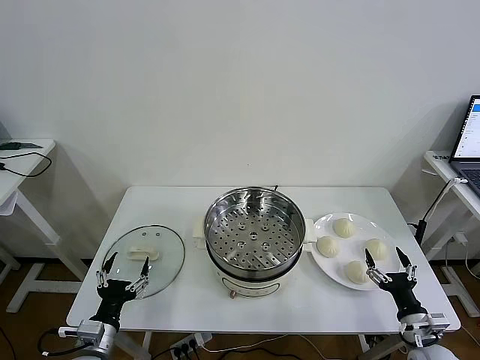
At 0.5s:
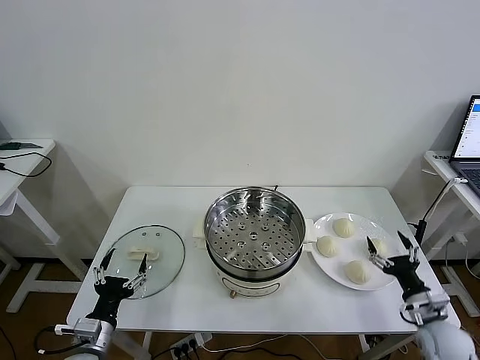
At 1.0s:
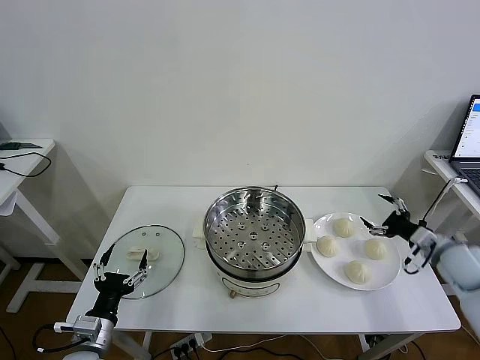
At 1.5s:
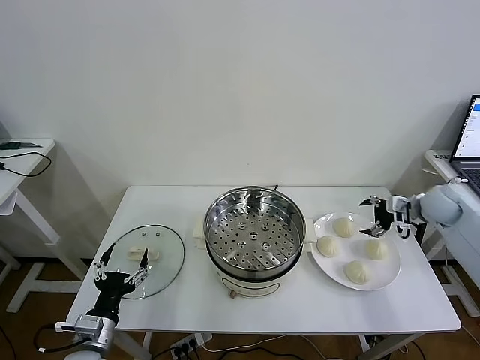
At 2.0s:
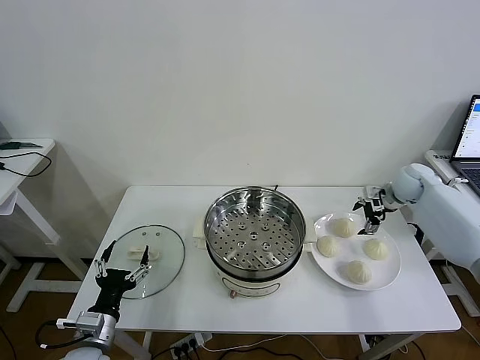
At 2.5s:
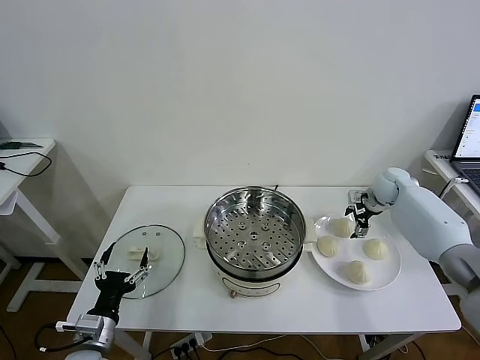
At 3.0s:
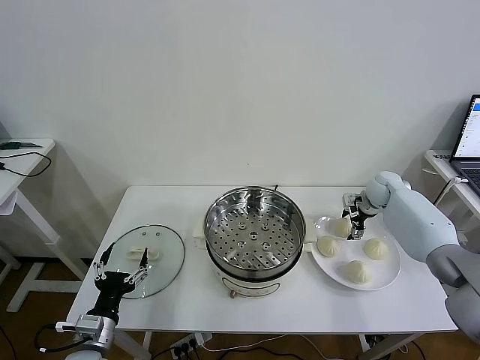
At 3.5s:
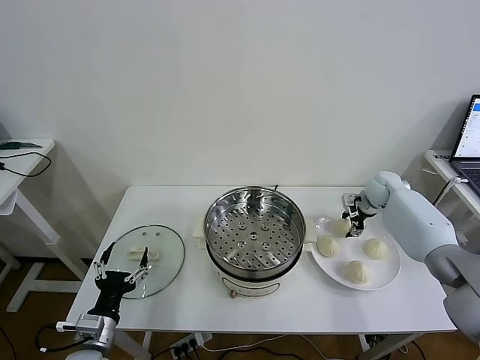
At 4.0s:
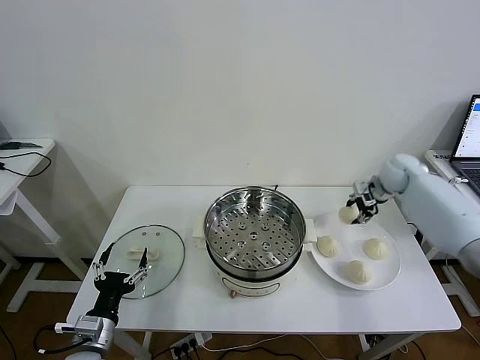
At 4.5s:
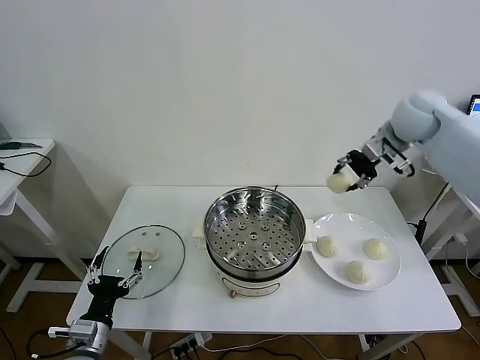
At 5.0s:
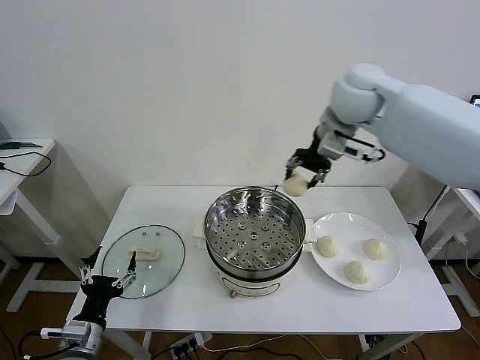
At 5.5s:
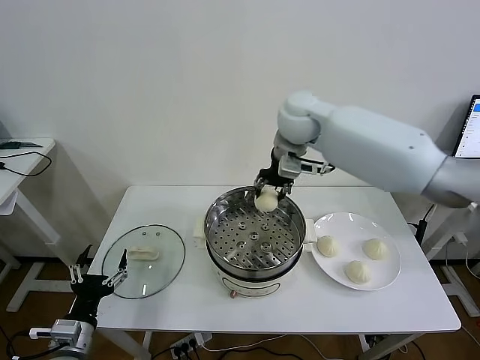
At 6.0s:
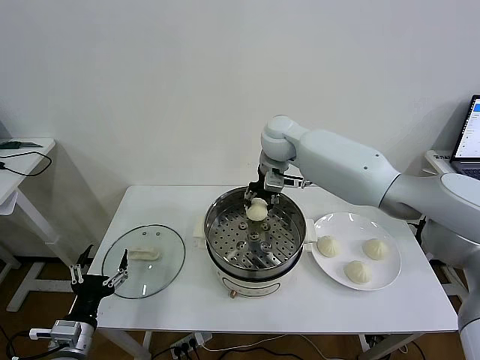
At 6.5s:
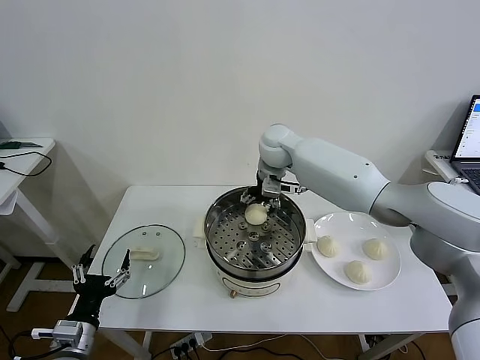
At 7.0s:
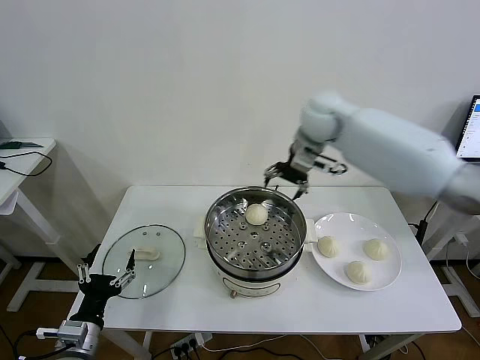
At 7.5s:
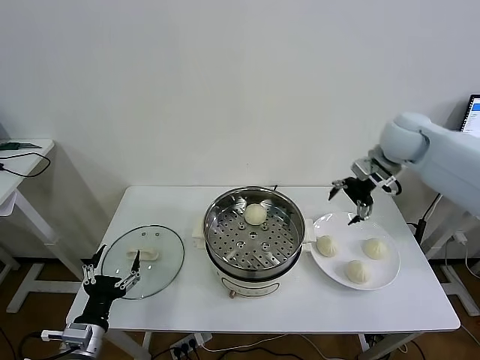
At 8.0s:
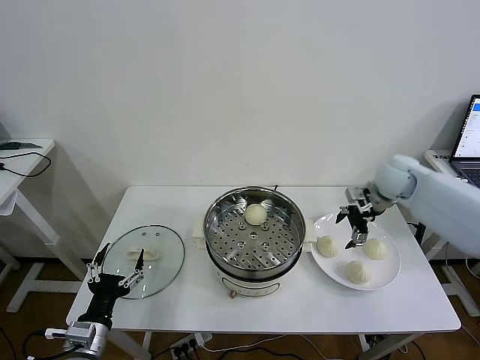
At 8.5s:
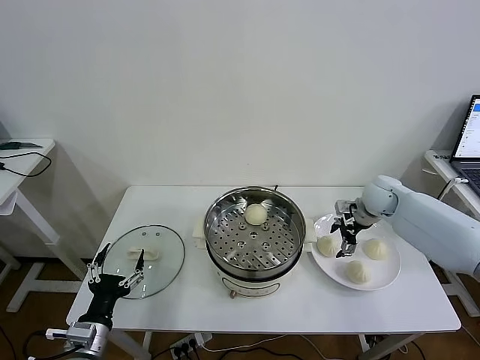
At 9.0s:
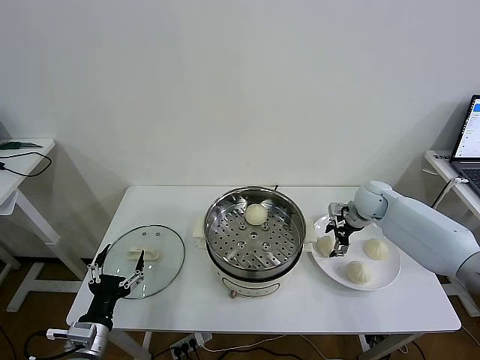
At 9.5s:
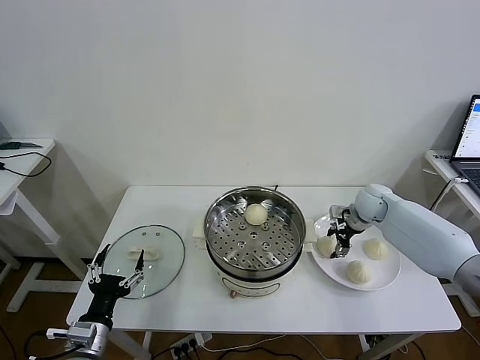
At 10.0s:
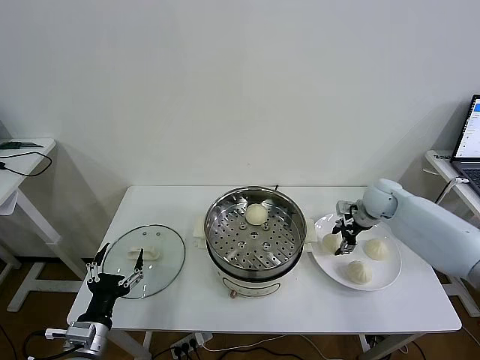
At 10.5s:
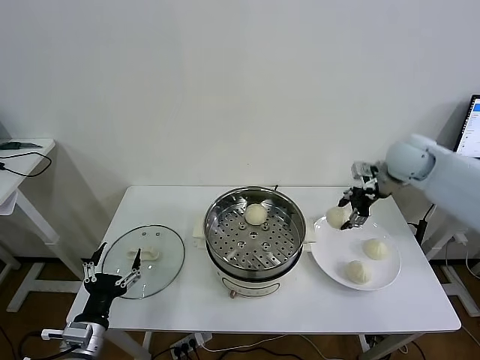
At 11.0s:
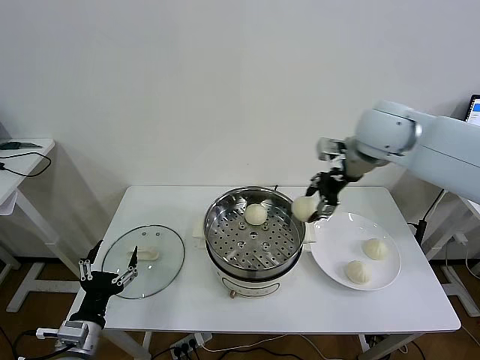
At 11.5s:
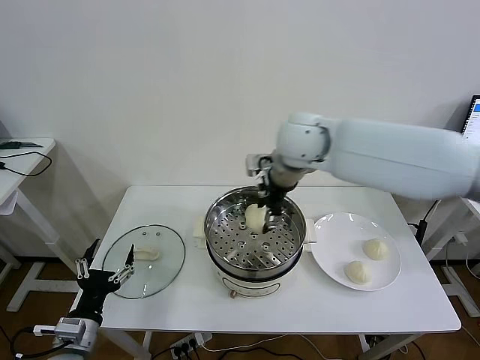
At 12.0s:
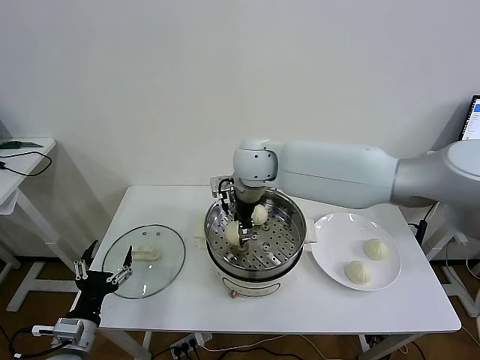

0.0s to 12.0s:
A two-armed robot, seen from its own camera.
Task of the whole recording: take steamed baozi put them in steamer then cover it.
Step, 0.0s to 3.0s: Grasp the baozi in the plate with right gripper.
Step, 4.0s to 6.5s: Place the baozi on the steamer with right gripper.
Step, 7.0s to 9.5s: Grasp the baozi in the plate with right gripper.
2.0s to 4.0s: The right gripper heads upward, covering roughly 5 cm, and closes its fingers.
4.0s to 6.0s: The right gripper moves to the left, about 30 cm.
6.0s to 8.0s: The right gripper heads to the right, covering approximately 25 cm, and opens up.
8.0s to 10.0s: The right gripper is displaced downward by about 5 cm, and closes its fingers.
10.0s to 12.0s: The right gripper is displaced to the left and upward by approximately 35 cm.

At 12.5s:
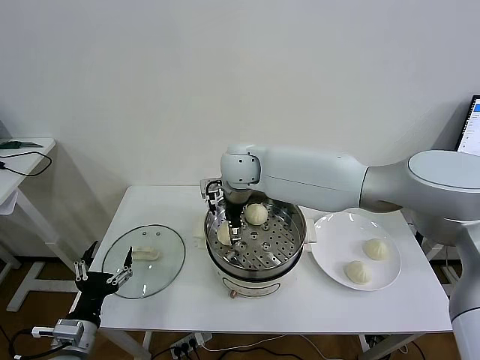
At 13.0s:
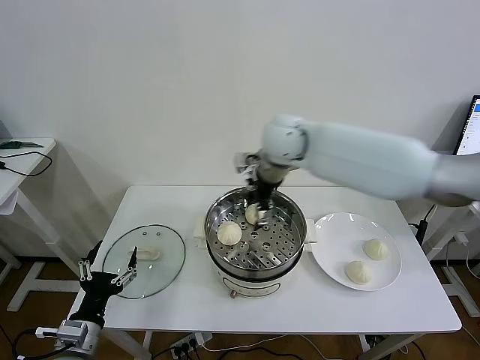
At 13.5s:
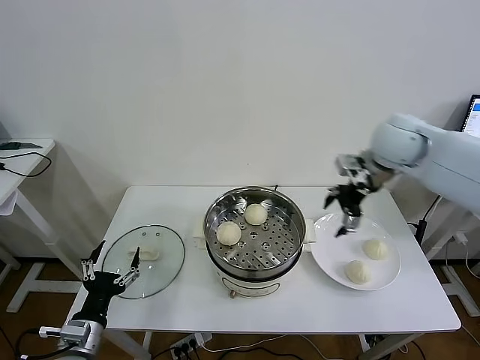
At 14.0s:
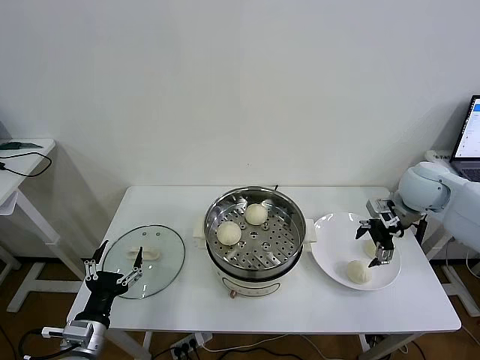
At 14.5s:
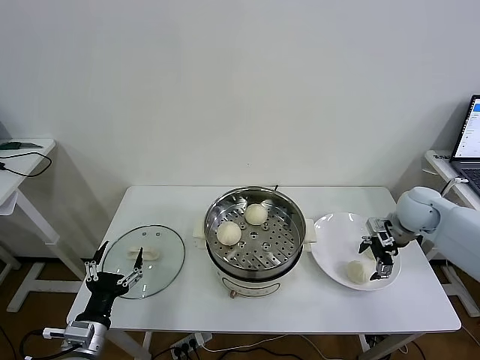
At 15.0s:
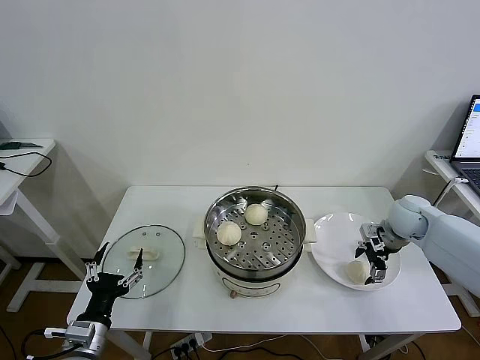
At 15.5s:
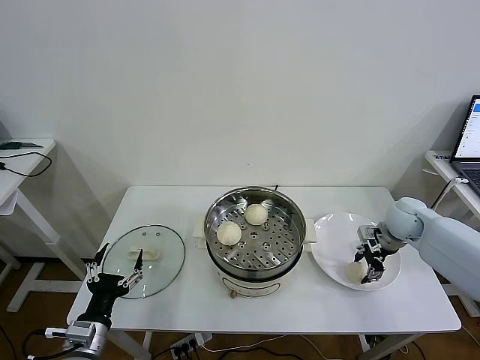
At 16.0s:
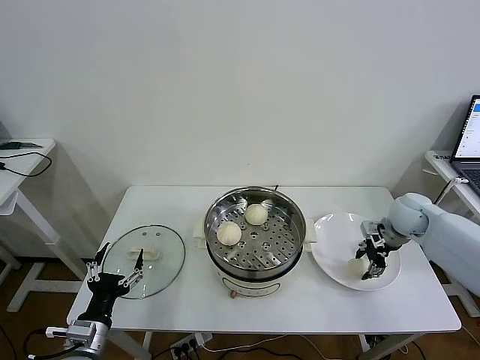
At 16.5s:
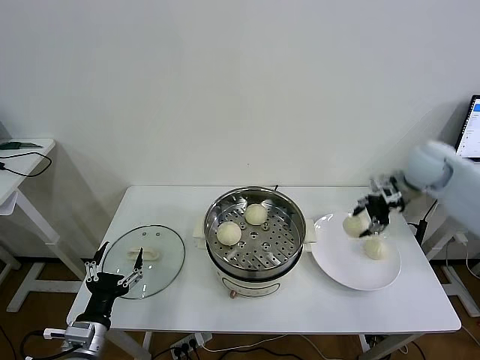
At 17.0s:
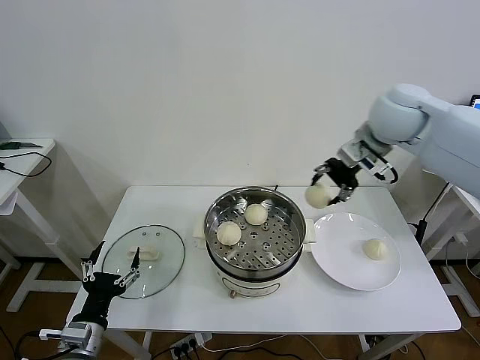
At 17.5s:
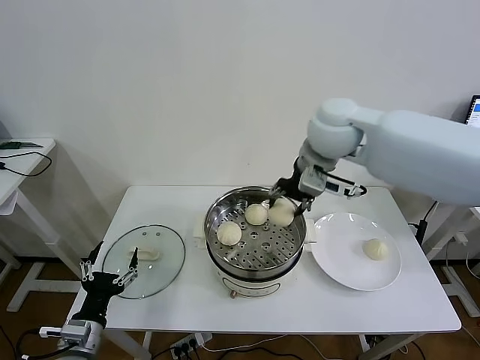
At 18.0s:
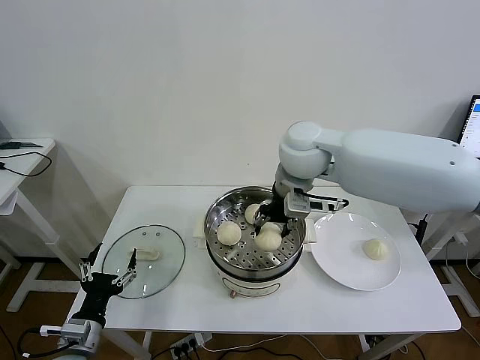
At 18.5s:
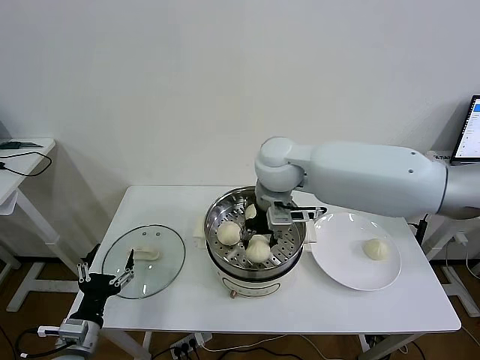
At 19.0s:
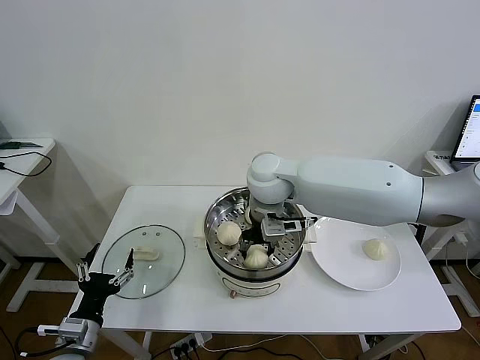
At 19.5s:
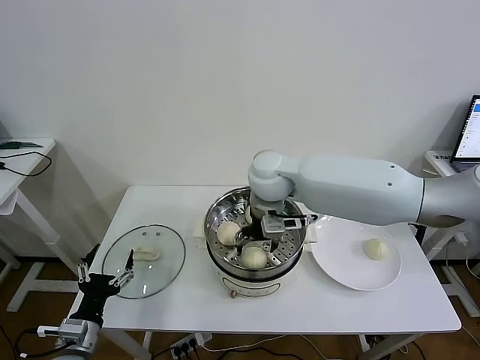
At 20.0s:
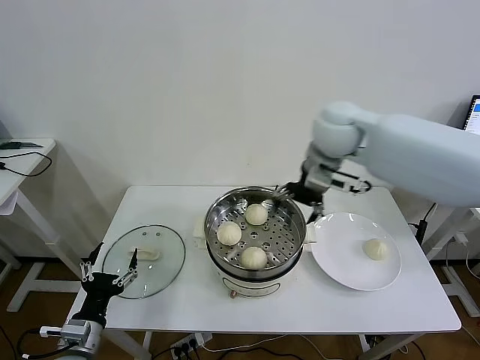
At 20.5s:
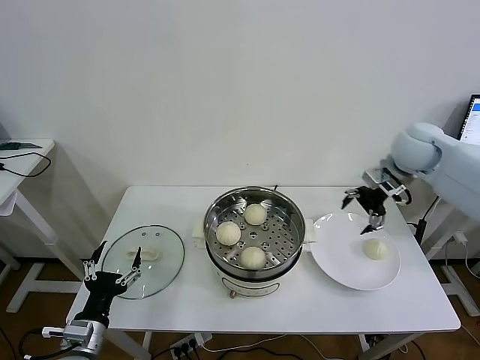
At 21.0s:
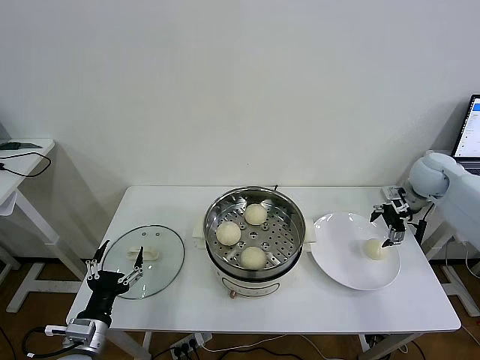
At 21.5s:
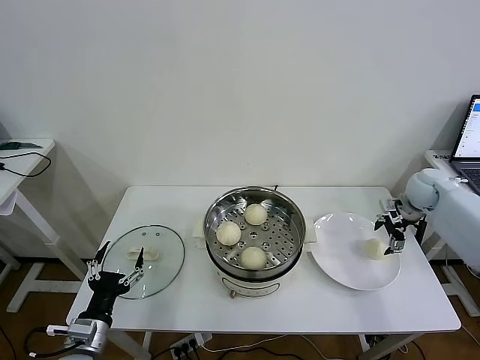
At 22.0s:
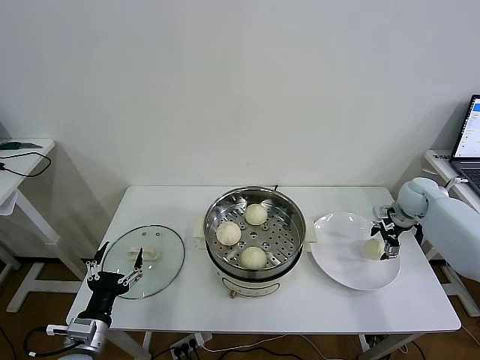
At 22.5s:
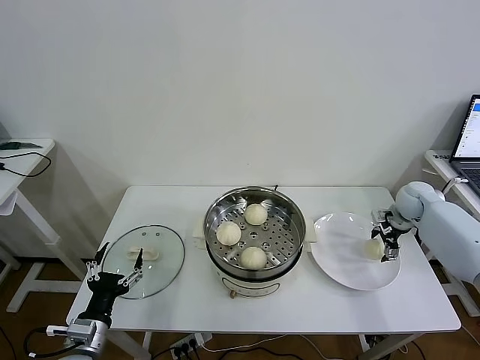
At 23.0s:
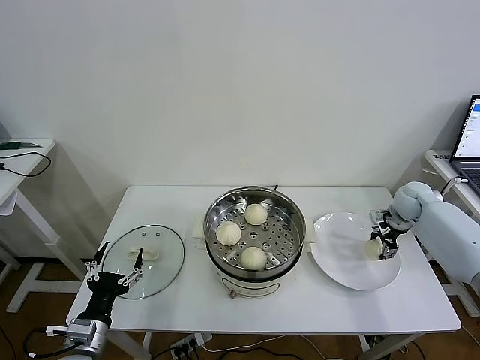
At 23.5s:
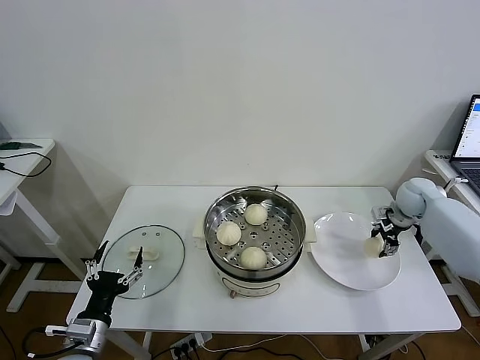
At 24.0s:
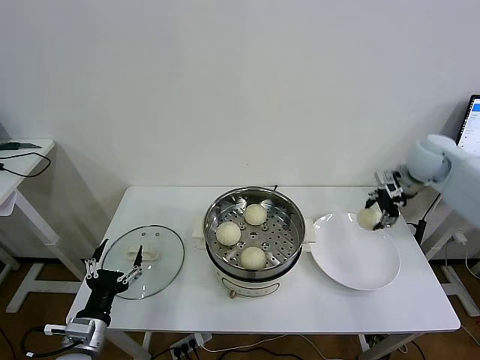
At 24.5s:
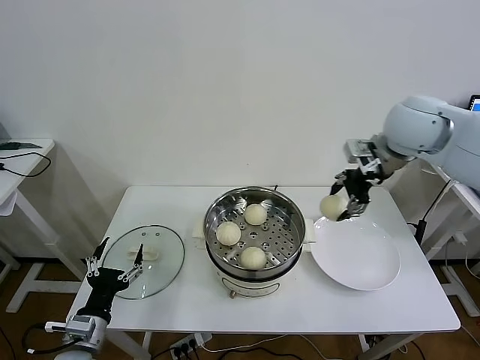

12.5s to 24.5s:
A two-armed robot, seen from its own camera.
Task of the whole recording: take steamed baozi put them in steamer then cover it.
Step, 13.0s to 15.5s: Grasp the baozi in the plate with right gripper.
Step, 16.0s to 19.5s: Place the baozi on the steamer with right gripper.
Step, 20.0s to 23.0s: Grasp the baozi in the plate with right gripper.
12.5s to 14.5s: The right gripper travels to the right by roughly 40 cm.
14.5s to 16.5s: The right gripper moves upward, roughly 10 cm, and closes its fingers.
16.5s to 18.5s: The right gripper goes some 30 cm to the left.
18.5s to 20.5s: The right gripper shifts some 30 cm to the right, and opens up.
20.5s to 22.5s: The right gripper heads downward and to the right, covering some 20 cm.
22.5s to 24.5s: The right gripper heads upward and to the left, covering some 30 cm, and closes up.

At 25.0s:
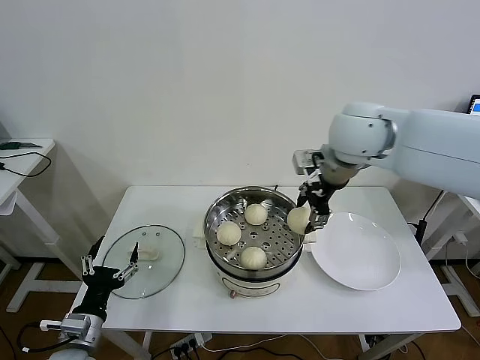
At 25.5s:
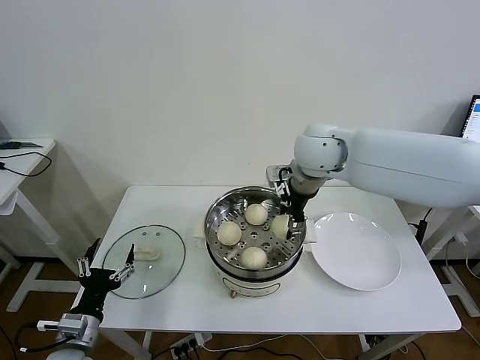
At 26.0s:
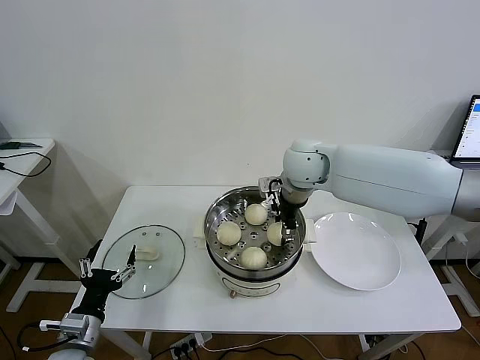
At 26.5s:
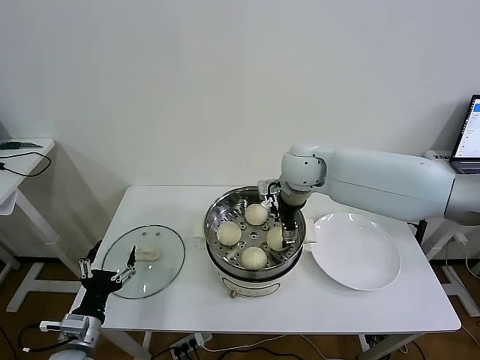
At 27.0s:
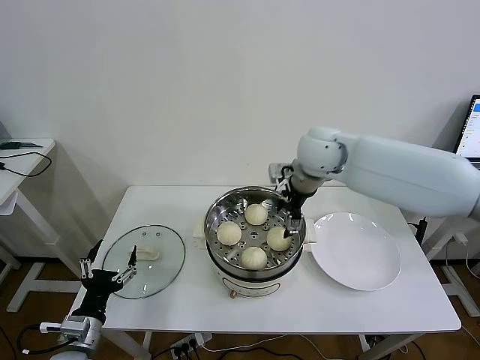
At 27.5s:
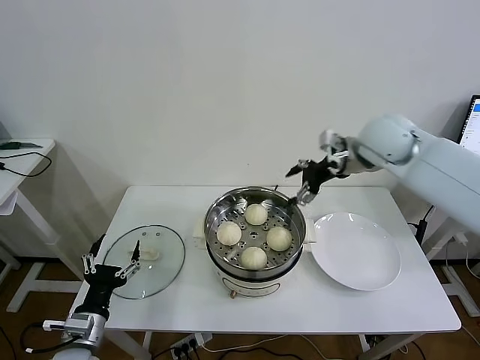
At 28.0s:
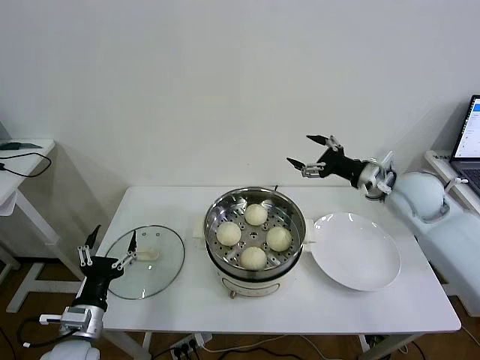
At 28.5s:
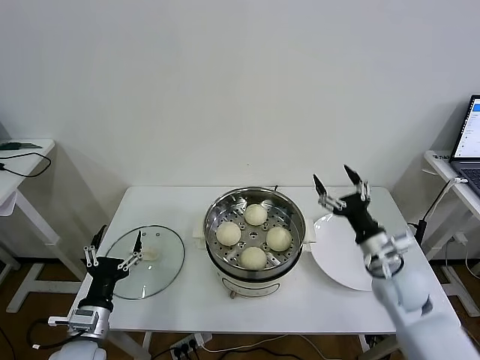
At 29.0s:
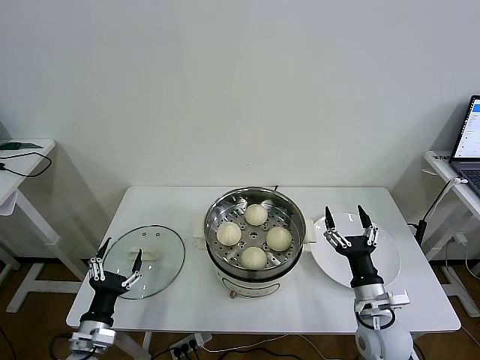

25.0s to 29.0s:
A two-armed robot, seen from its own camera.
Task of the whole recording: take steamed baozi put them in steamer then cover it.
25.0s to 27.0s: The right gripper shifts approximately 10 cm downward, and opens.
27.0s to 29.0s: The right gripper heads downward, backward and to the right, covering roughly 40 cm.
